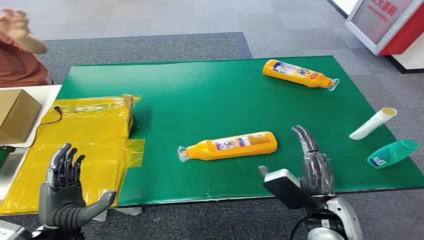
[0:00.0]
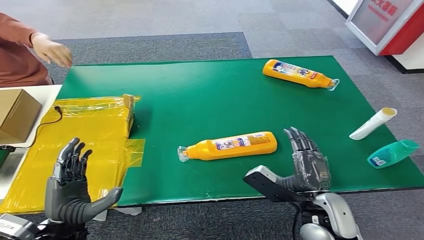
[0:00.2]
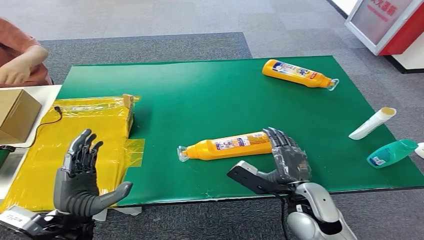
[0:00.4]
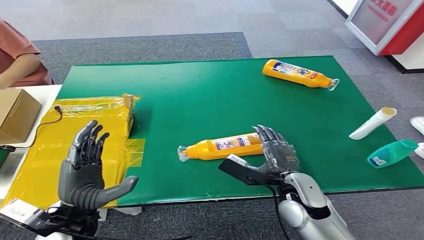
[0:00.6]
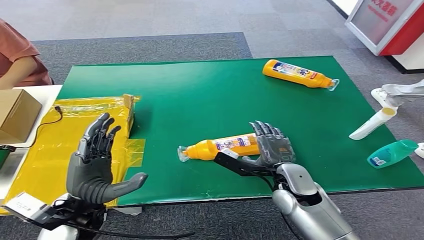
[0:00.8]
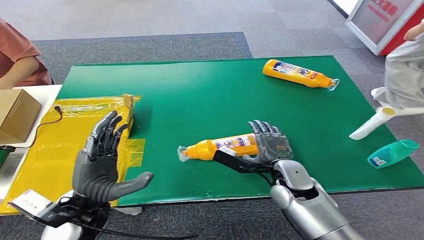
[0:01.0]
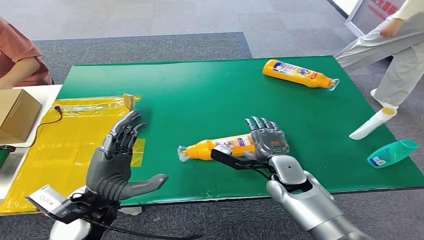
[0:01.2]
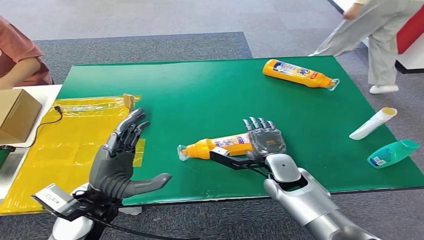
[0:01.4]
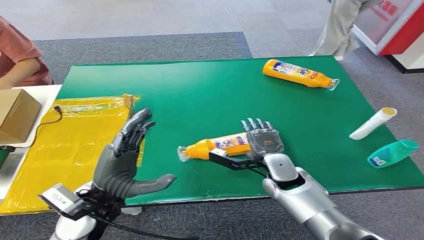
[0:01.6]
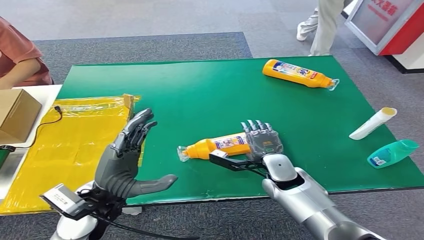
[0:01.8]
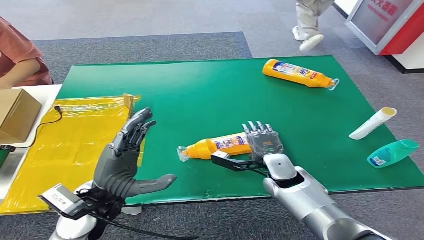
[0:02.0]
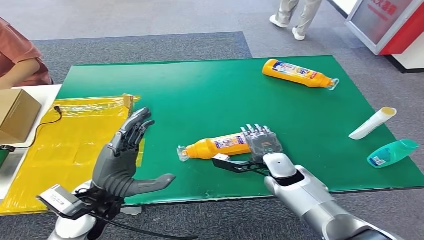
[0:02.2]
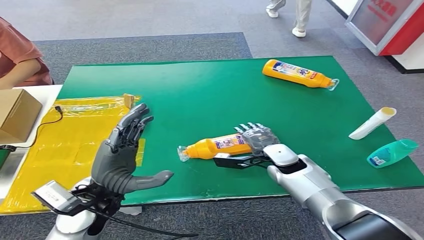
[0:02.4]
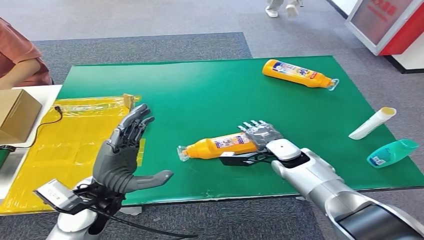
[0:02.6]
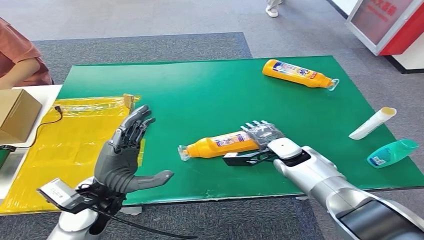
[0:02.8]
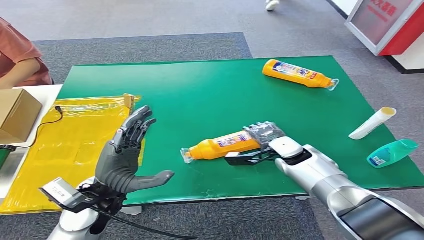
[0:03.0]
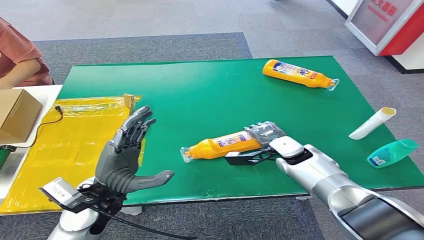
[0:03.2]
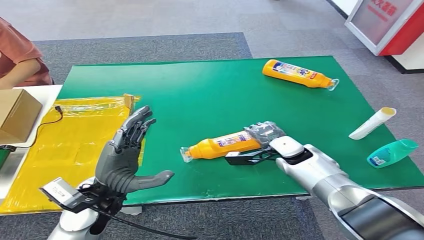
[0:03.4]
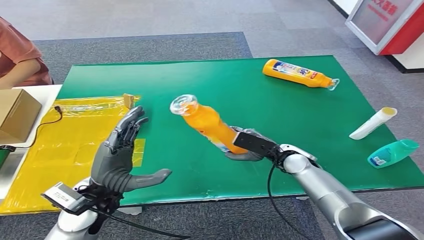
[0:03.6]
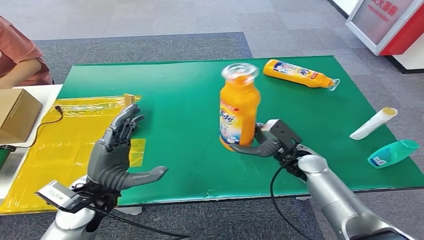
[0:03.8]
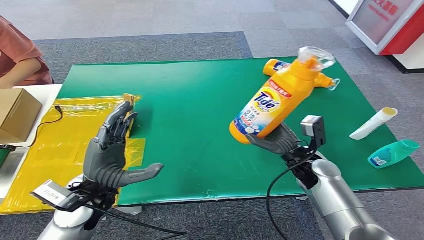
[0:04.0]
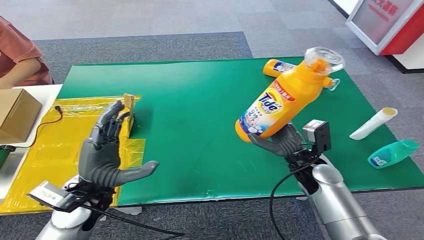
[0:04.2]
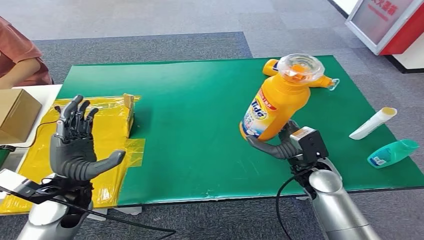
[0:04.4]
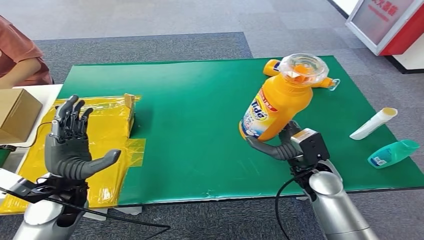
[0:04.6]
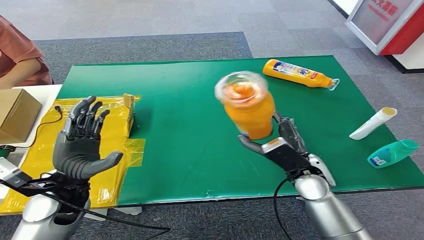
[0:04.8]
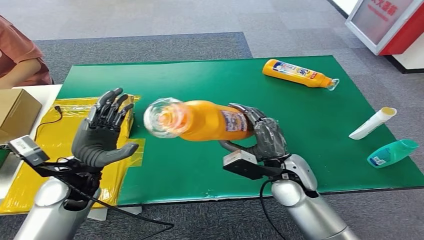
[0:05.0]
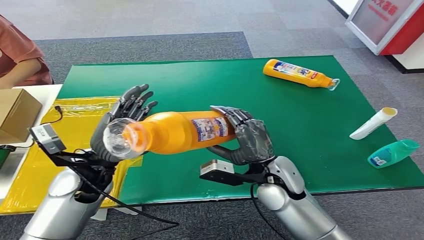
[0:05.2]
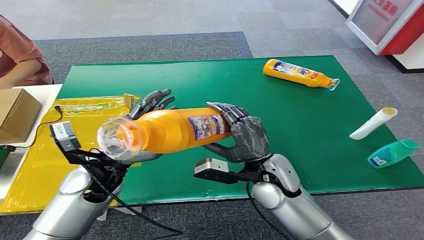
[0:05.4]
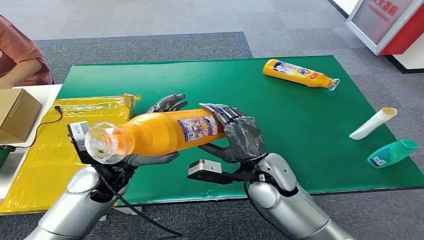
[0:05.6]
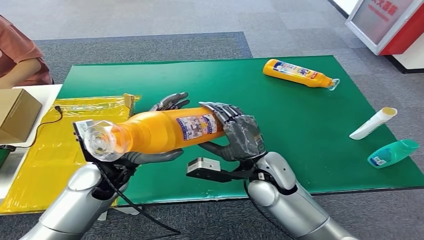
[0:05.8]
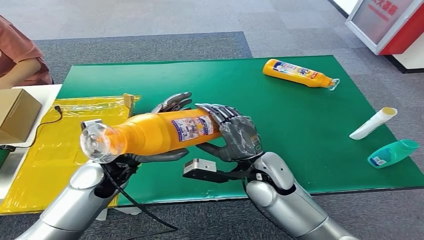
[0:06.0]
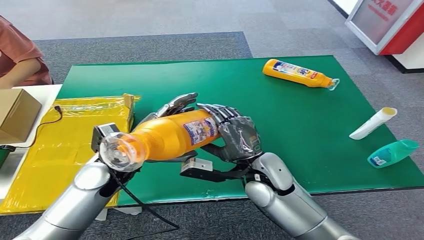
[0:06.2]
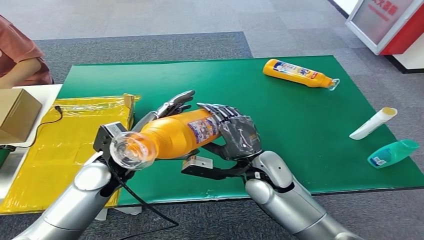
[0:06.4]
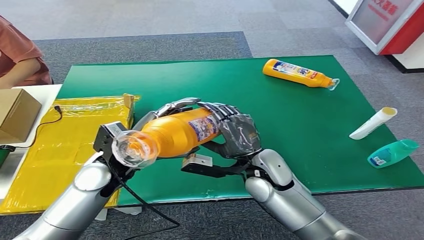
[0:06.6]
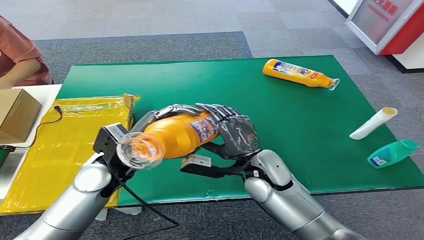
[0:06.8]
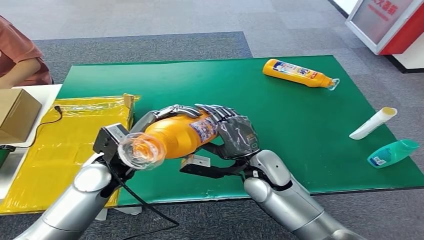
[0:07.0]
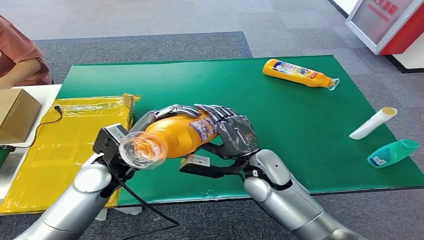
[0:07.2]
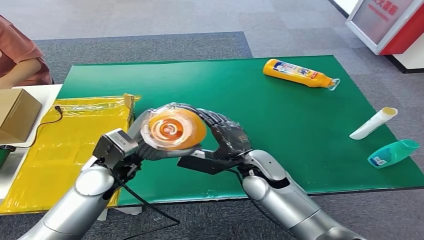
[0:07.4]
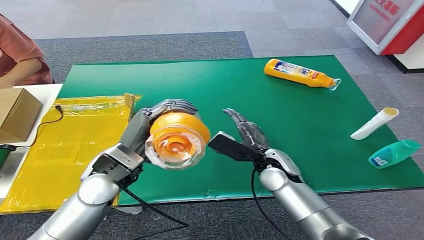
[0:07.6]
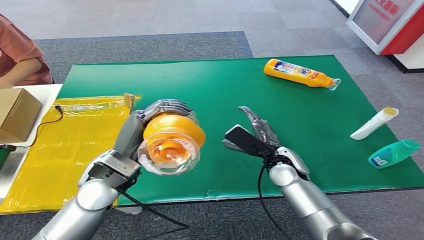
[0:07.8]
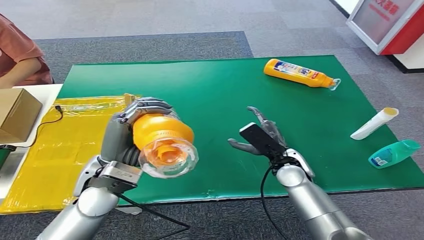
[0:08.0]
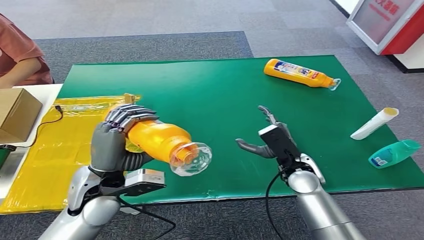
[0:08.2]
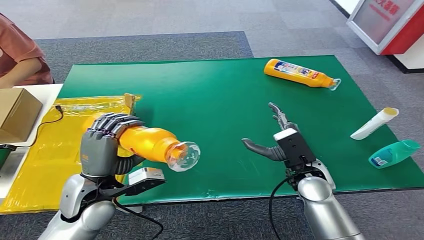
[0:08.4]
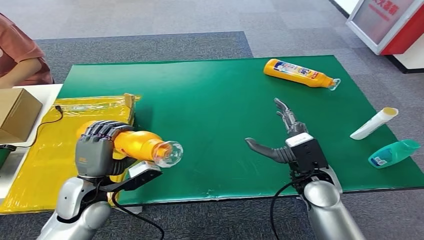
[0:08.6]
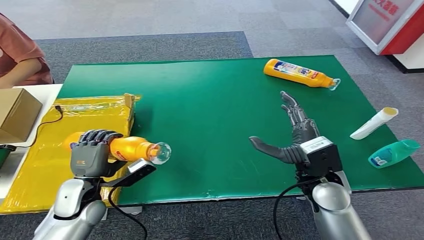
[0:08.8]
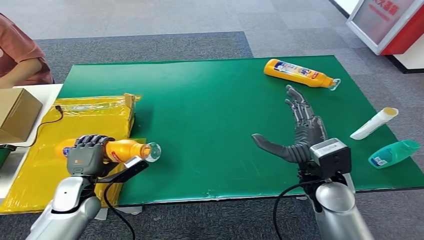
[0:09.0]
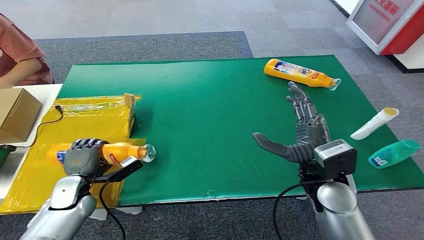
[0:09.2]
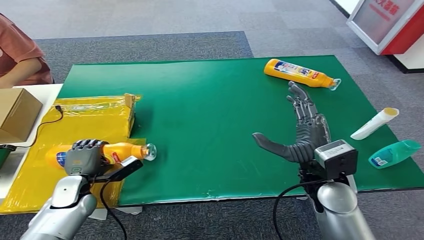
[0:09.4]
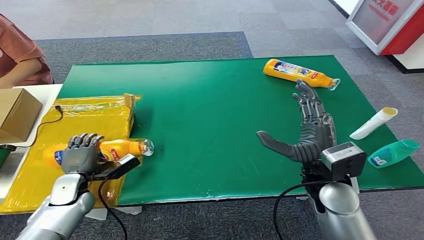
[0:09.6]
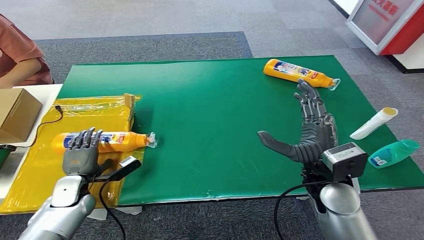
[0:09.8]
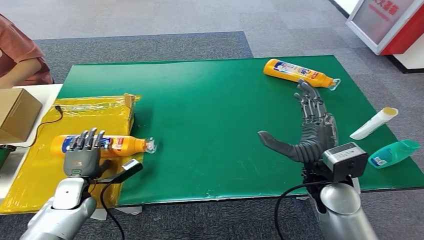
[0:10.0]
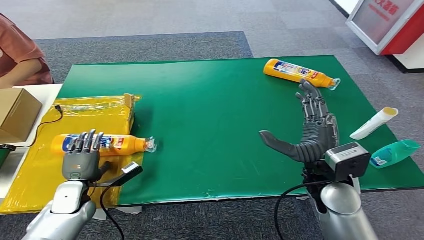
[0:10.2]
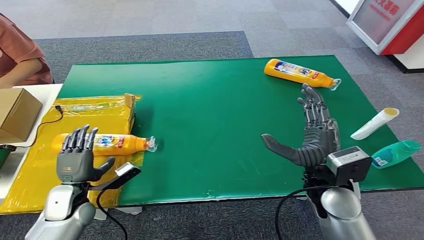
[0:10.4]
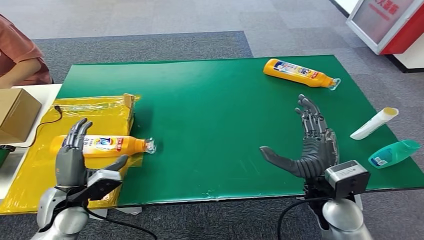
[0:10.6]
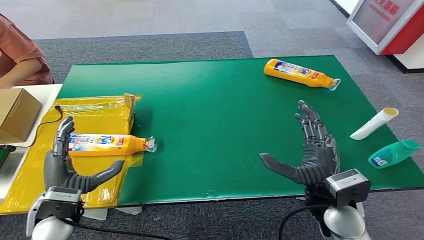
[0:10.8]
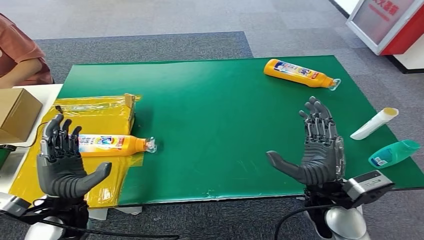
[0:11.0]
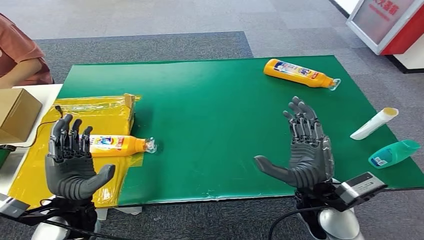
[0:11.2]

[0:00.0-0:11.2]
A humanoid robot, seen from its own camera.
Step, 0:00.0 to 0:04.4: Pick up the bottle from the table.
Step, 0:04.6 to 0:11.2: Turn the bottle to the front side.
0:01.6 to 0:03.2: The right hand is displaced forward and to the right by some 10 cm.
0:06.4 to 0:08.0: The right hand heads to the right, covering some 5 cm.
0:09.6 to 0:11.2: The right hand ends up approximately 5 cm from where it was. The left hand shifts roughly 20 cm upward, backward and to the right.
